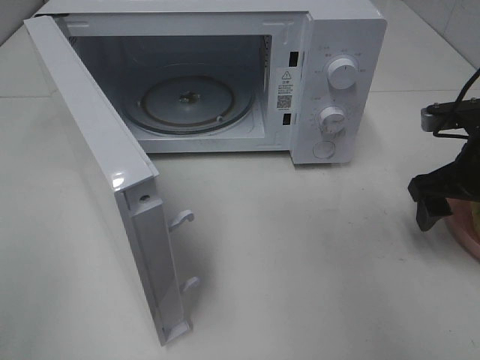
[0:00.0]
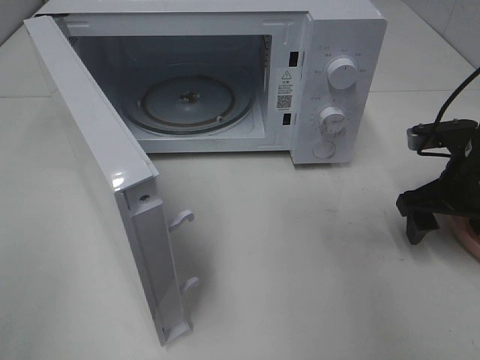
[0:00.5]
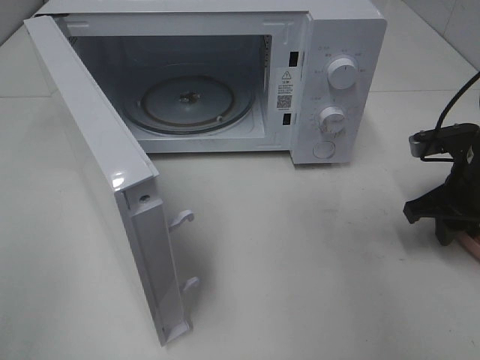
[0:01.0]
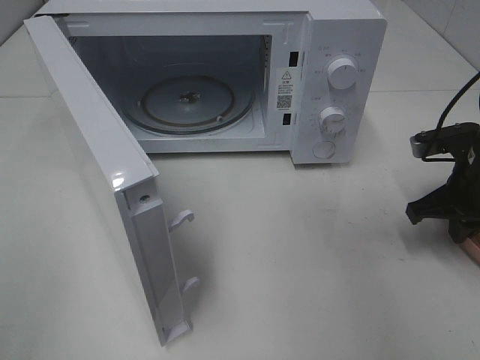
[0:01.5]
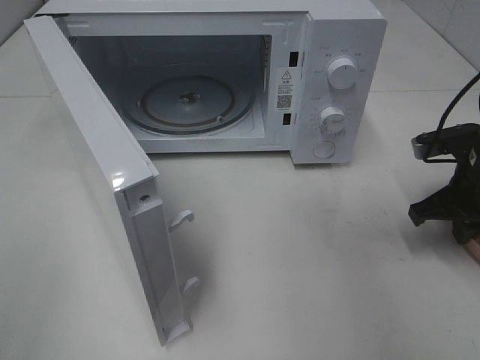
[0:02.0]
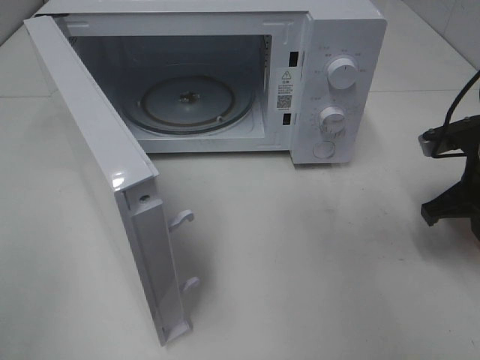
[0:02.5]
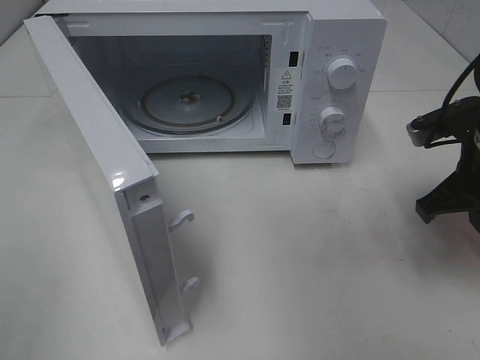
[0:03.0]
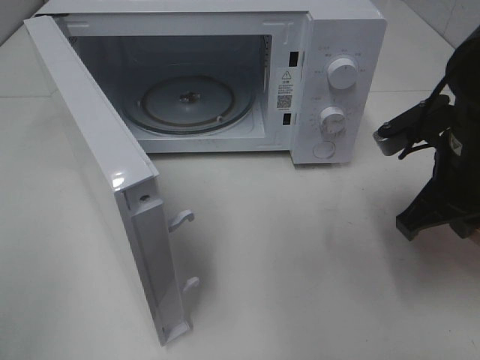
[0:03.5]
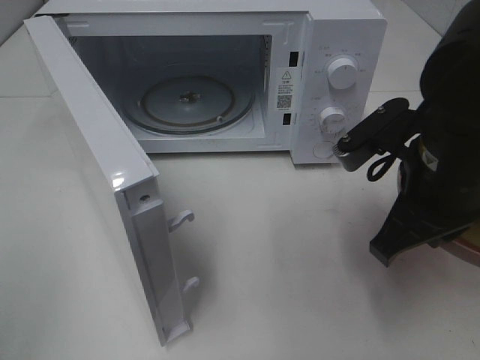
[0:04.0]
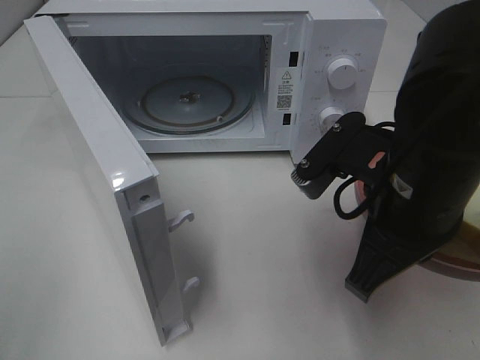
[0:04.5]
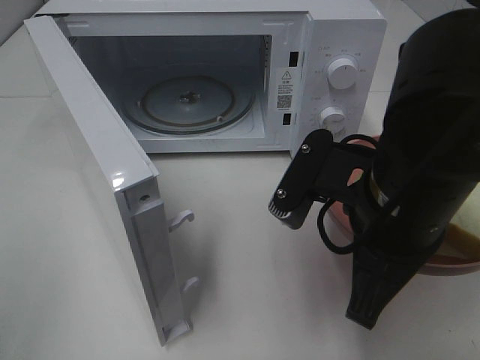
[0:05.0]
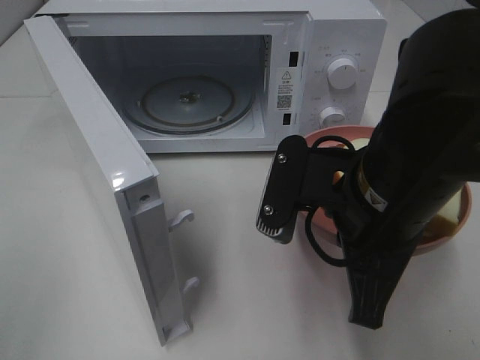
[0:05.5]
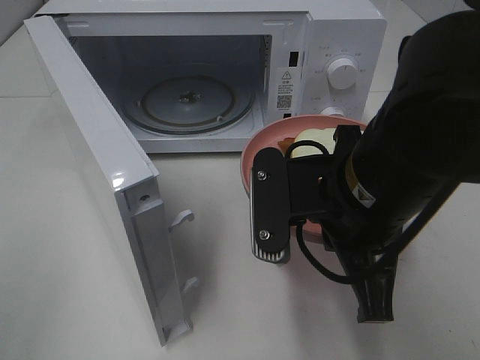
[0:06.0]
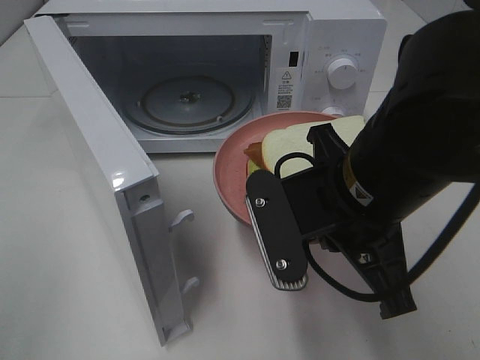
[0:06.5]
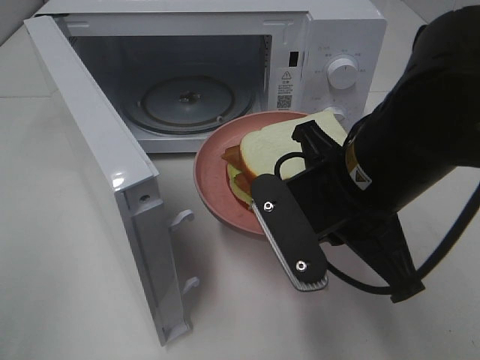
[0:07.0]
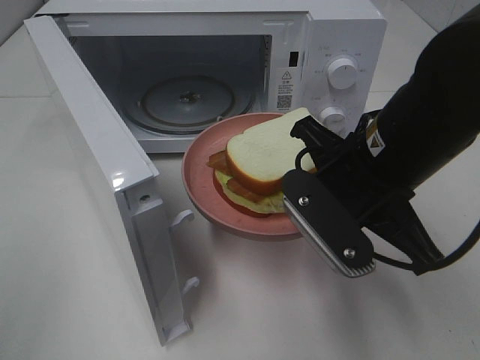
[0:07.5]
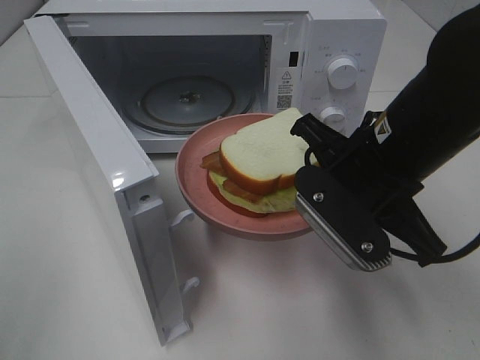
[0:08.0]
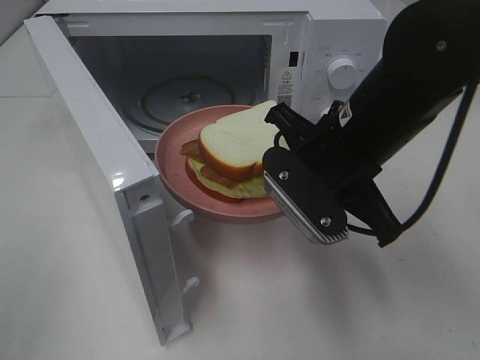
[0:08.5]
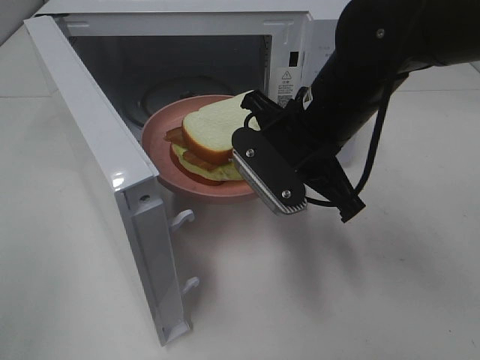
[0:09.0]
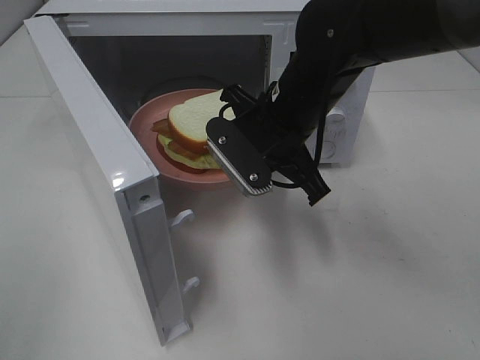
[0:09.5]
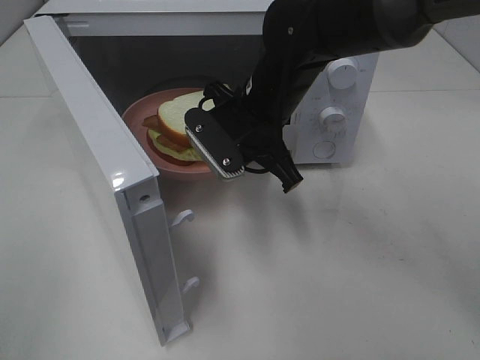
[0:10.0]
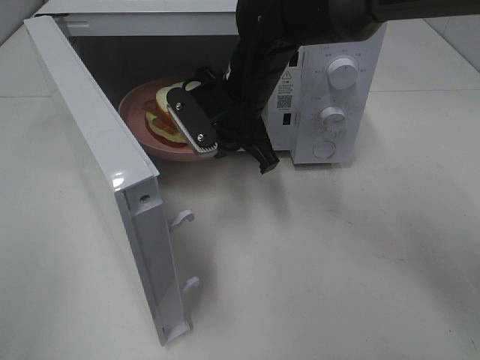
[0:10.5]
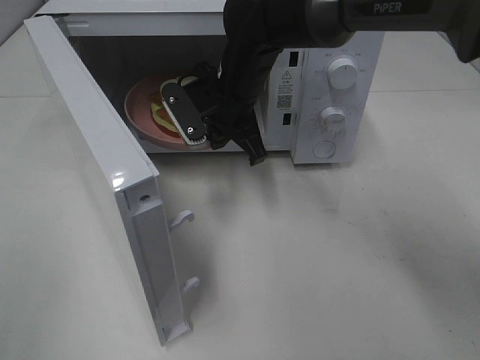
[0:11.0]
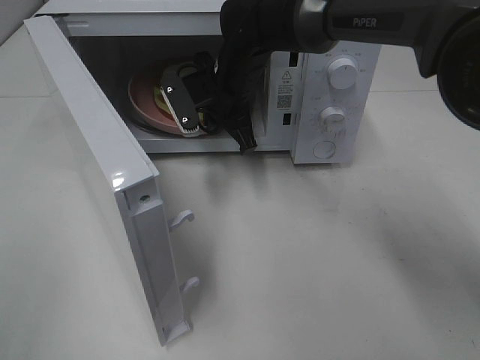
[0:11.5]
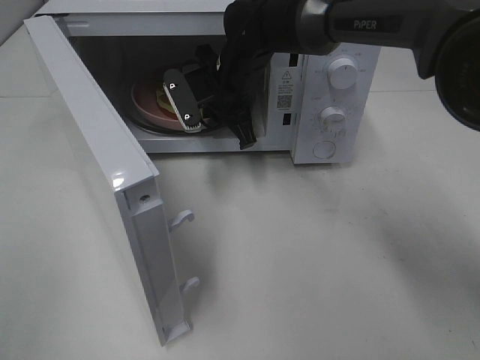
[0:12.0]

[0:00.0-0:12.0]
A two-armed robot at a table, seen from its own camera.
Task of the whole recording: Heat Sandwich.
Step, 0:00.0 to 0:02.0: Right hand: grab the plate with the sandwich.
0:00.0 to 0:02.0: The right gripper closes.
0:02.0 to 0:04.0: The right gripper heads to the left, upward and backward, covering roughly 15 cm.
0:04.0 to 0:06.0: The right gripper heads to the left, covering roughly 5 cm.
0:06.0 to 0:08.0: The right gripper moves some 5 cm.
0:08.0 to 0:10.0: The right gripper goes some 15 cm forward and to the left.
0:10.0 to 0:12.0: The right gripper moves forward, about 10 cm.

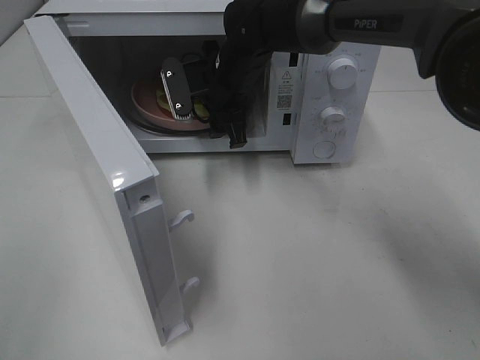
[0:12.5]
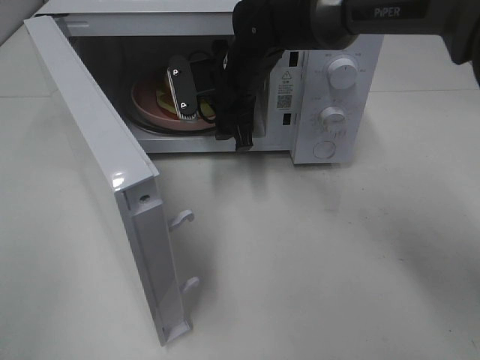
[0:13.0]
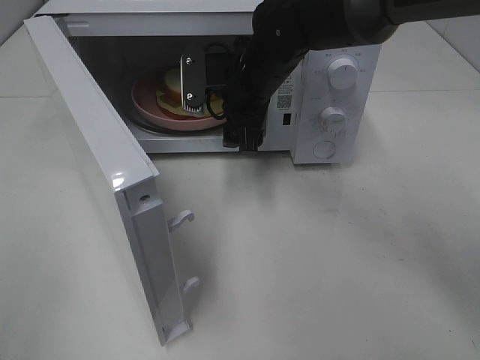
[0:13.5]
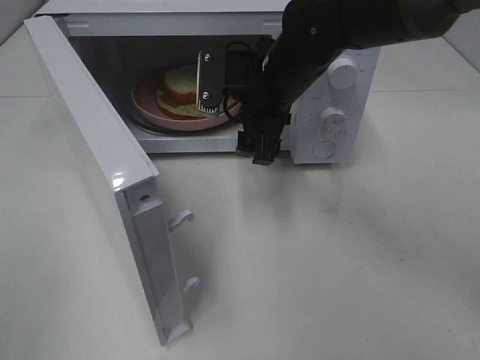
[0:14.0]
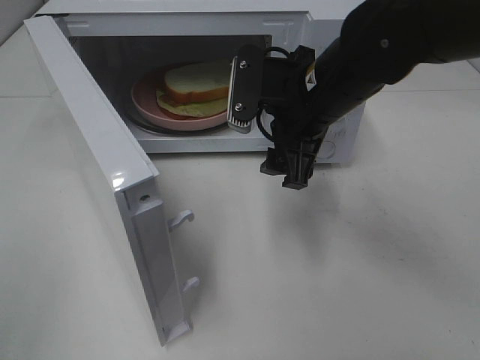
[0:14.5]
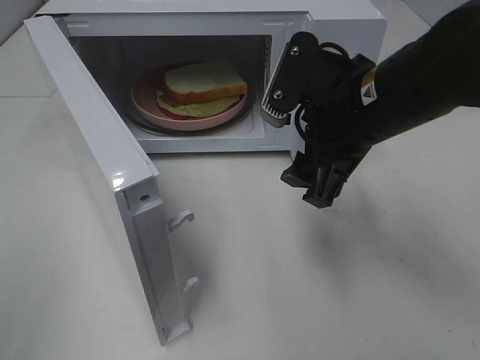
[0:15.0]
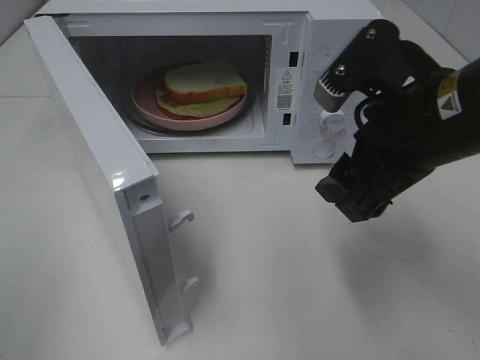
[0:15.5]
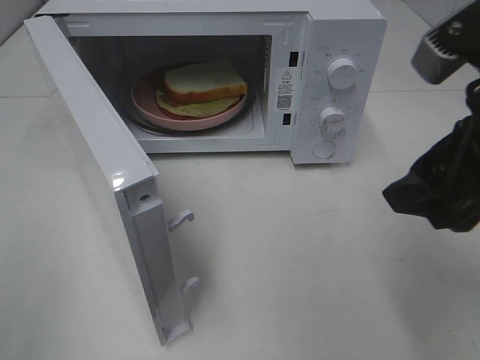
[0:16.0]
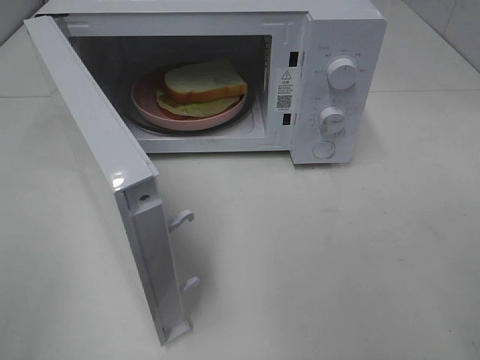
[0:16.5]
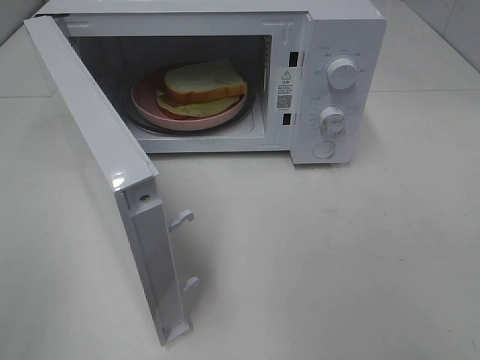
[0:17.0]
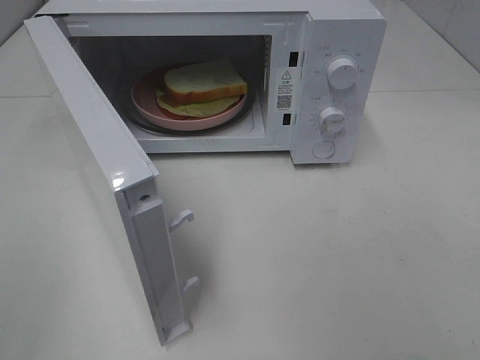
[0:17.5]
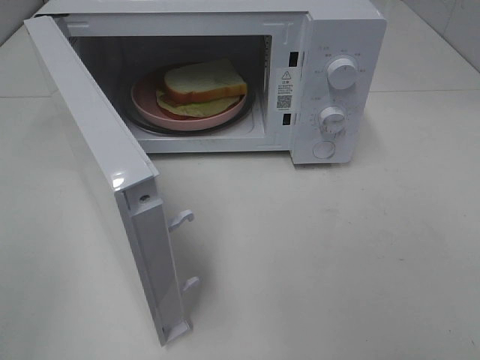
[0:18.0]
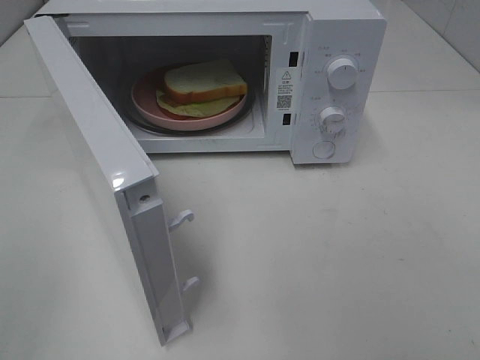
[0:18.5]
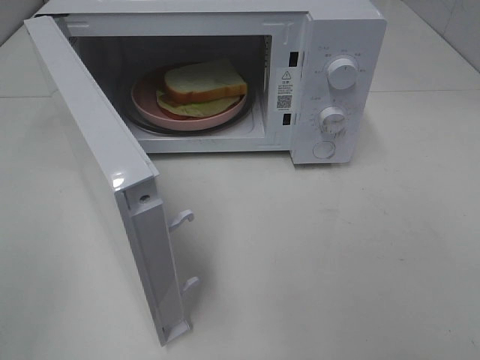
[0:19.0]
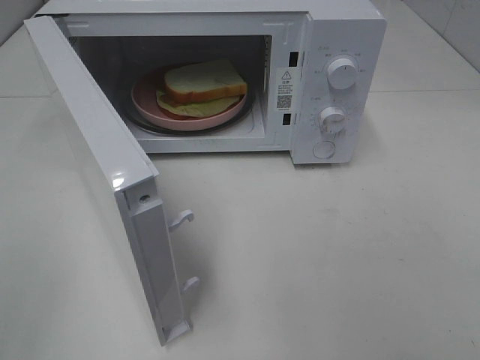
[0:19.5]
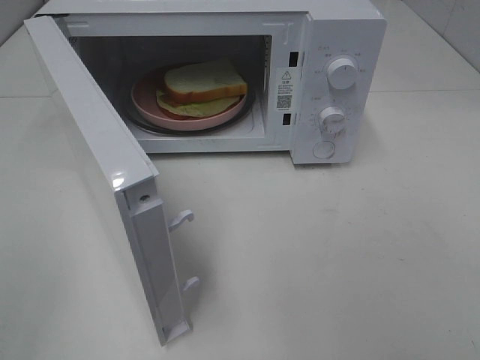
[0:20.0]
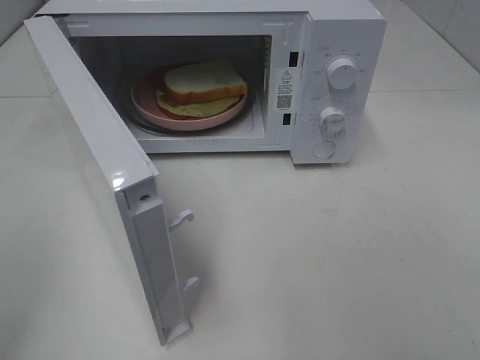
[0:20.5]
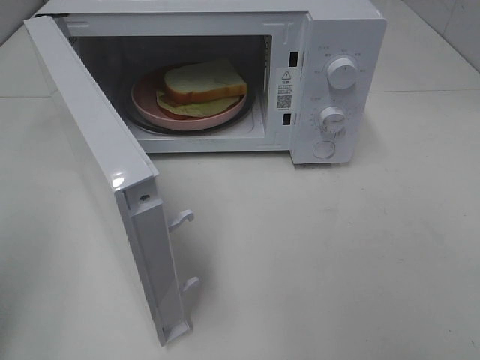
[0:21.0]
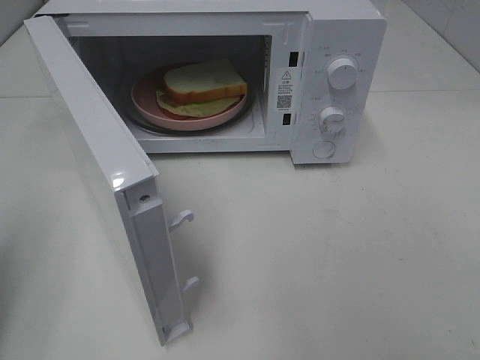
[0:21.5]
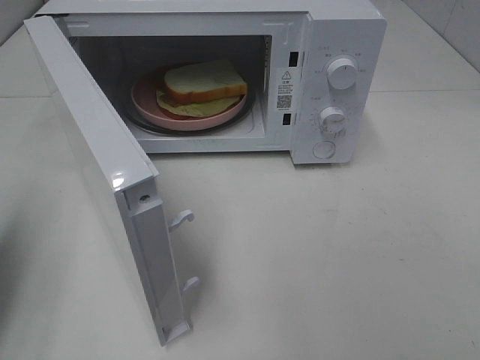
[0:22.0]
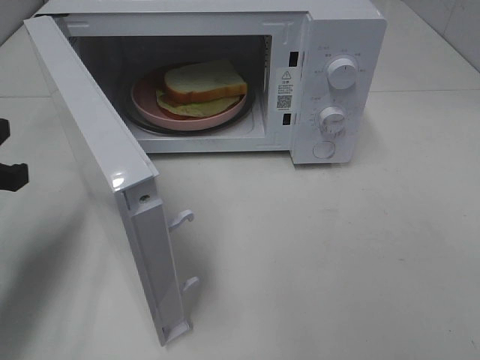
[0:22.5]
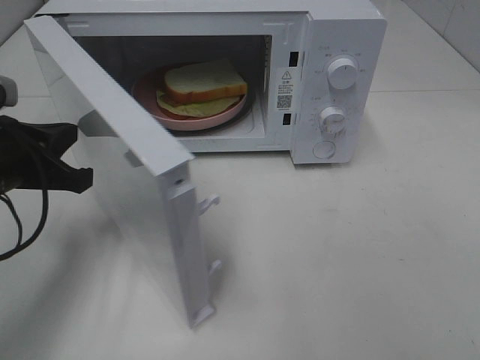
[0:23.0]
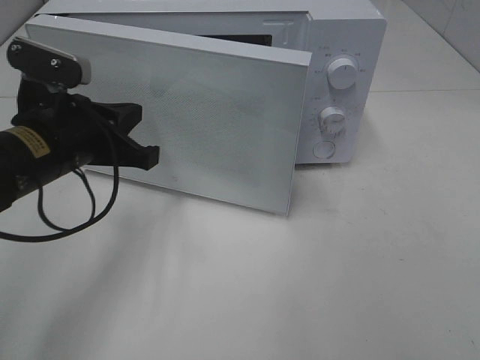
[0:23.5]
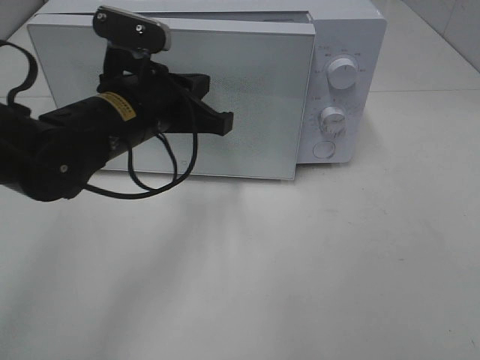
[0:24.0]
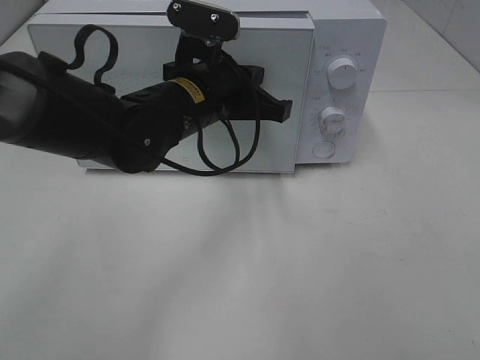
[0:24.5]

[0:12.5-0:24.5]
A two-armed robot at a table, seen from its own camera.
Task of the whole recording: Heat Sandwich.
0:12.5 to 0:14.5: The right gripper travels backward and to the right by approximately 15 cm.
0:14.5 to 0:16.5: The right gripper shifts about 30 cm backward, to the right and upward.
0:20.5 to 0:22.5: The left gripper is displaced forward and downward by roughly 20 cm, and closes.
0:22.5 to 0:24.5: The left gripper shifts about 25 cm to the right and forward.

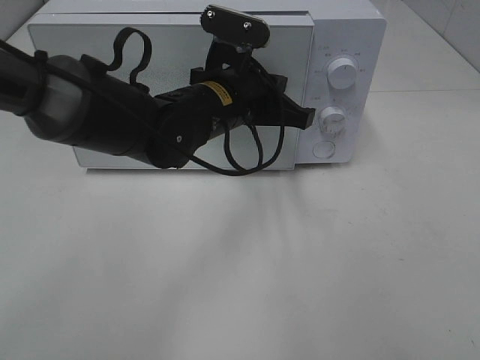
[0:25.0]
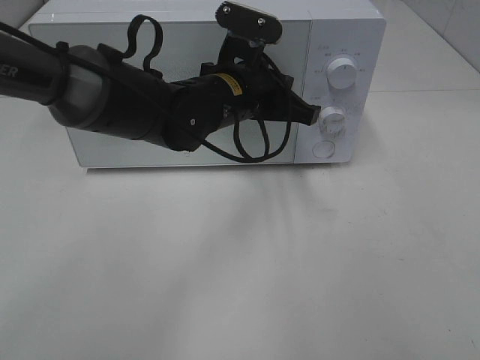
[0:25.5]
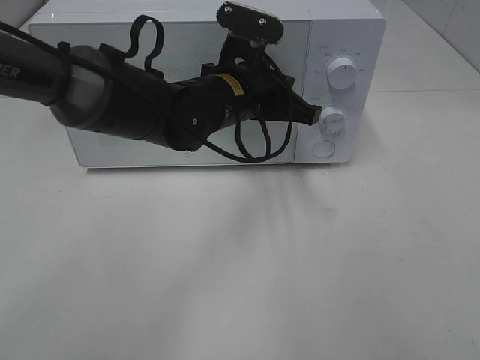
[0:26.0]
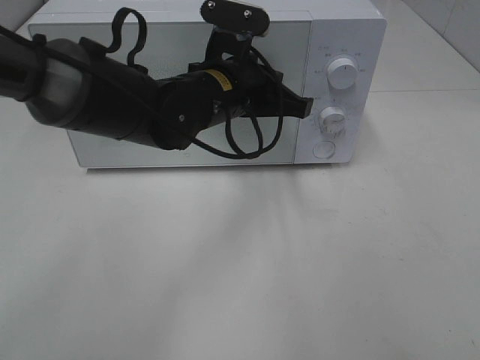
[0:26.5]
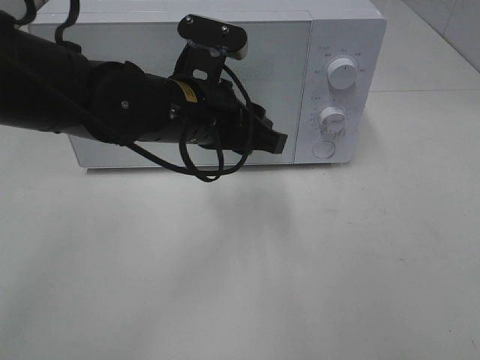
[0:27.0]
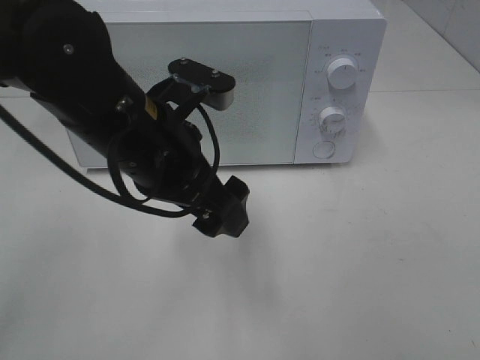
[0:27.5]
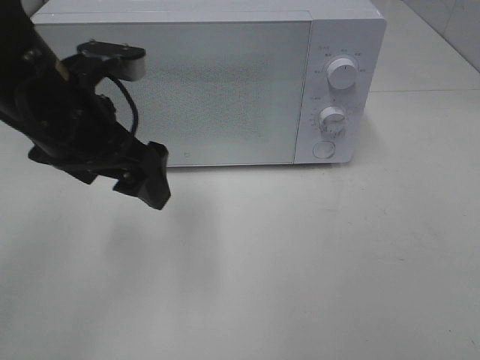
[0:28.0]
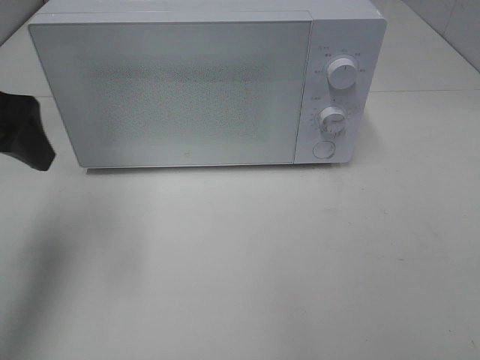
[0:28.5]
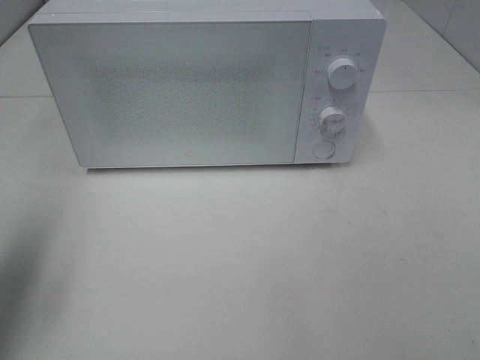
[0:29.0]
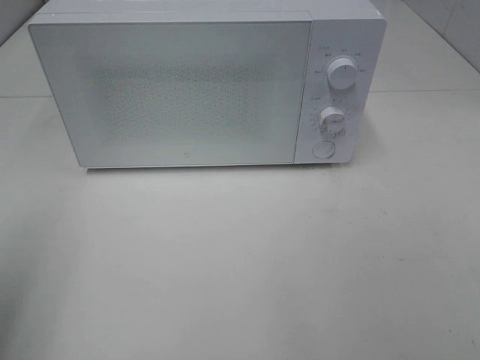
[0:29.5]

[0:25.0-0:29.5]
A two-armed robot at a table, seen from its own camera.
Task of the whole recording: Heat Sandwich.
0:25.0 to 0:27.0: The left gripper moves about 5 cm, and opens.
0:27.0 to 0:29.5: The left gripper heads to the left and backward, covering some 35 cm, and opens.
